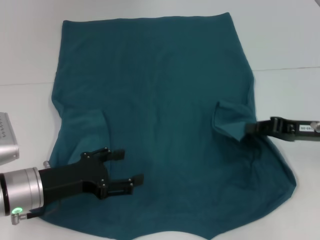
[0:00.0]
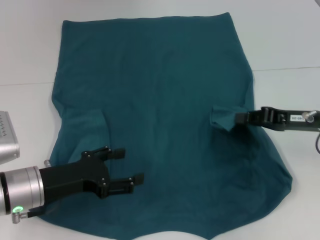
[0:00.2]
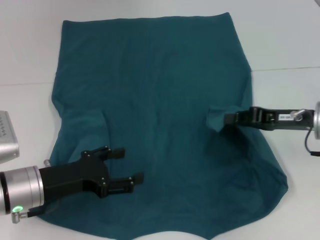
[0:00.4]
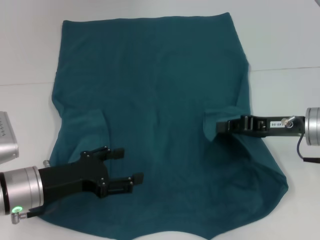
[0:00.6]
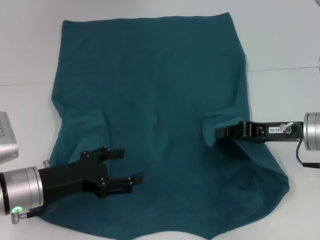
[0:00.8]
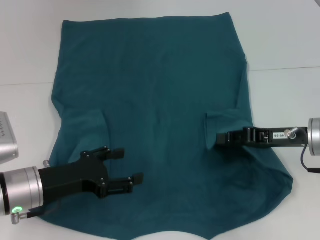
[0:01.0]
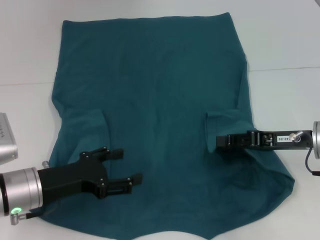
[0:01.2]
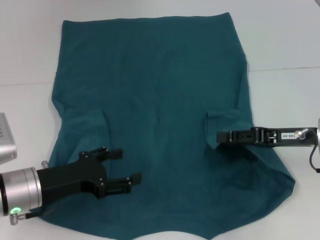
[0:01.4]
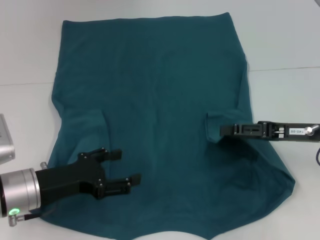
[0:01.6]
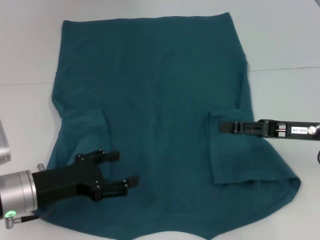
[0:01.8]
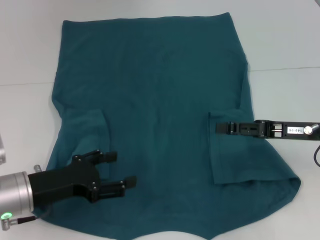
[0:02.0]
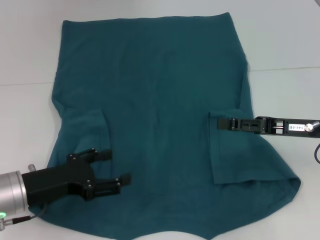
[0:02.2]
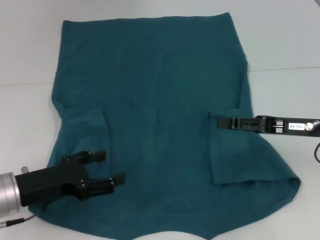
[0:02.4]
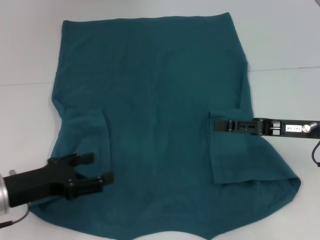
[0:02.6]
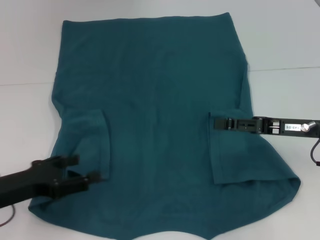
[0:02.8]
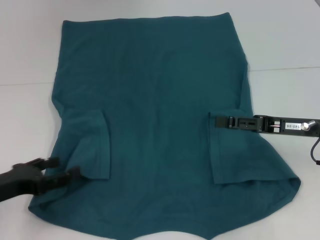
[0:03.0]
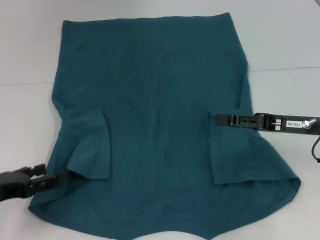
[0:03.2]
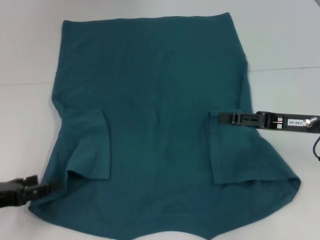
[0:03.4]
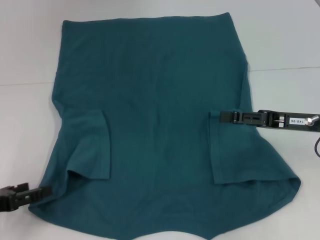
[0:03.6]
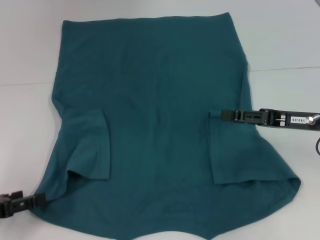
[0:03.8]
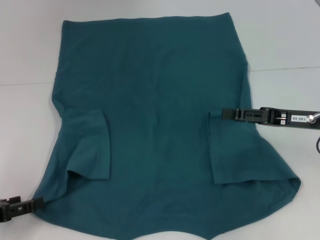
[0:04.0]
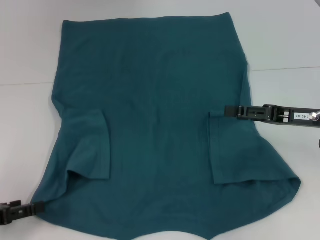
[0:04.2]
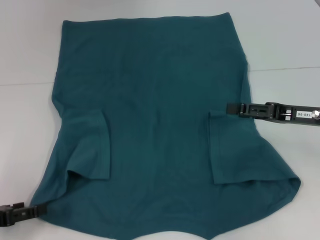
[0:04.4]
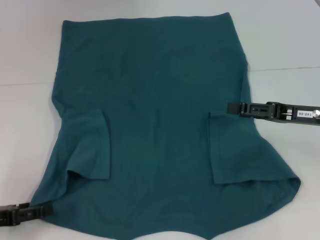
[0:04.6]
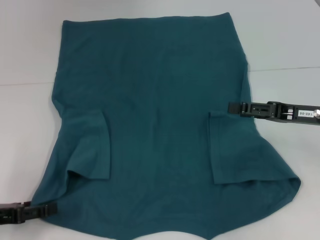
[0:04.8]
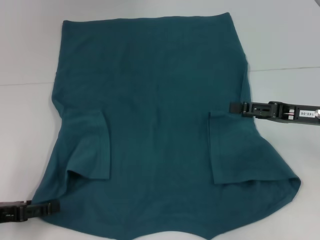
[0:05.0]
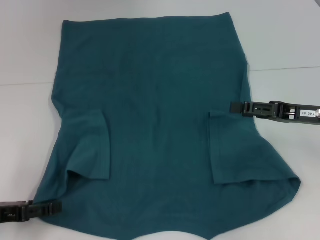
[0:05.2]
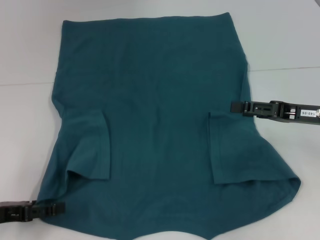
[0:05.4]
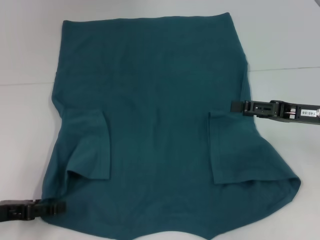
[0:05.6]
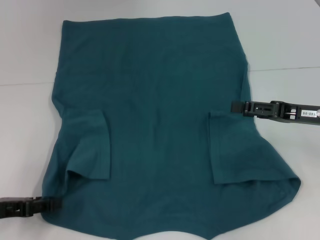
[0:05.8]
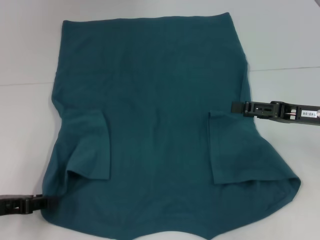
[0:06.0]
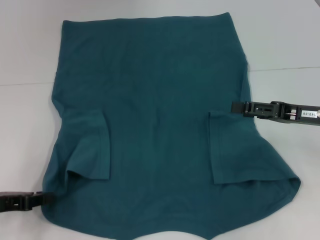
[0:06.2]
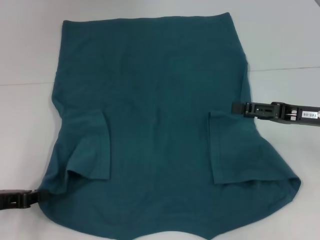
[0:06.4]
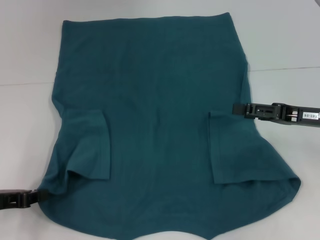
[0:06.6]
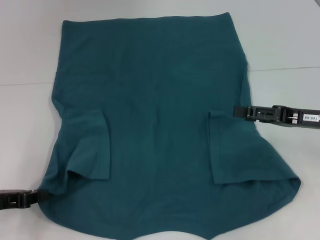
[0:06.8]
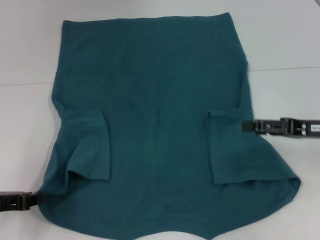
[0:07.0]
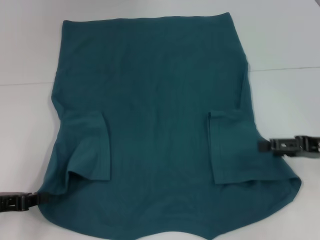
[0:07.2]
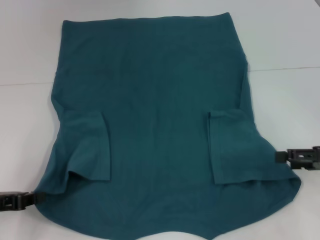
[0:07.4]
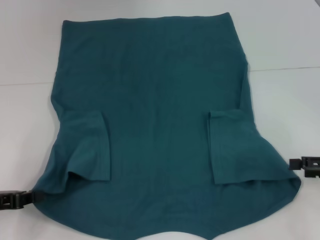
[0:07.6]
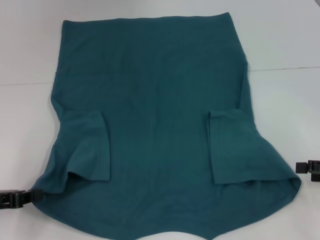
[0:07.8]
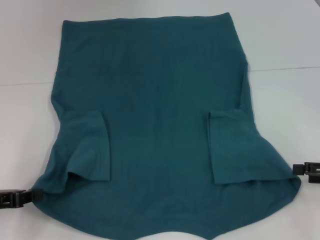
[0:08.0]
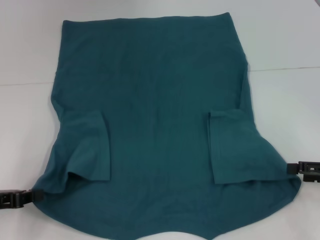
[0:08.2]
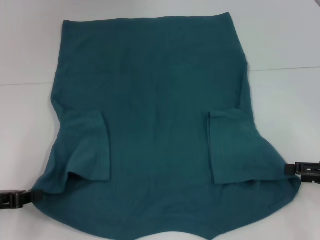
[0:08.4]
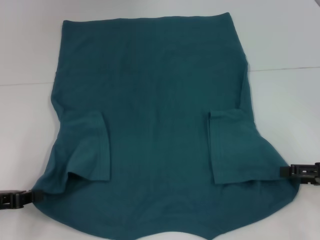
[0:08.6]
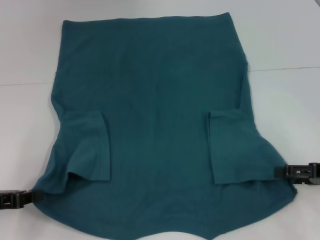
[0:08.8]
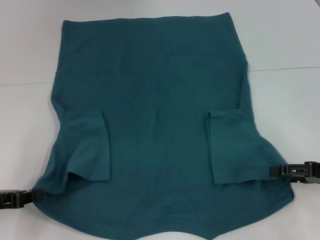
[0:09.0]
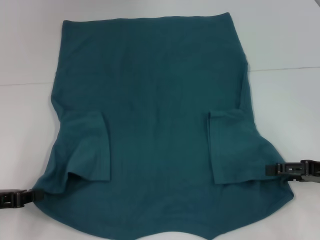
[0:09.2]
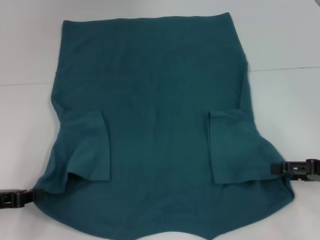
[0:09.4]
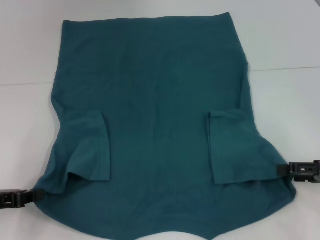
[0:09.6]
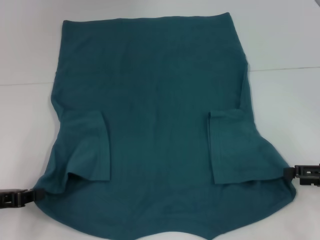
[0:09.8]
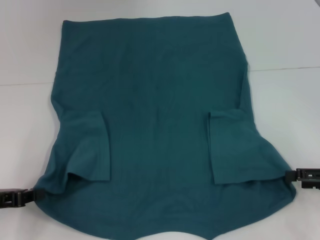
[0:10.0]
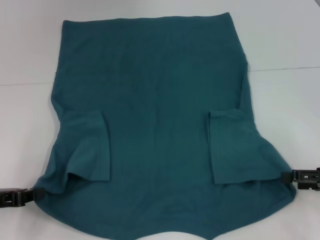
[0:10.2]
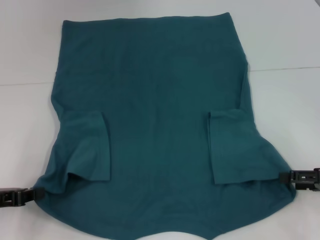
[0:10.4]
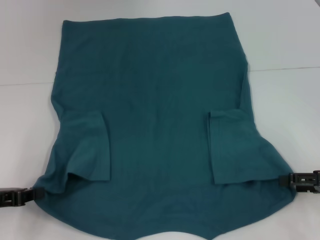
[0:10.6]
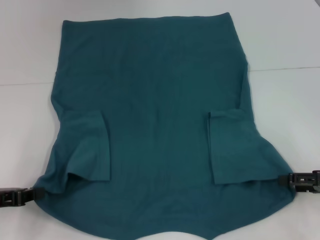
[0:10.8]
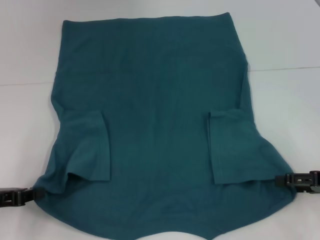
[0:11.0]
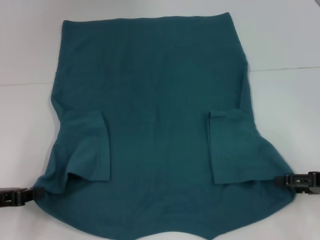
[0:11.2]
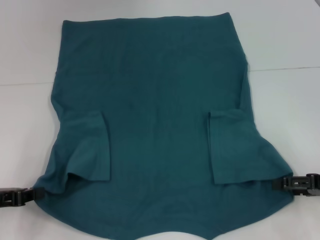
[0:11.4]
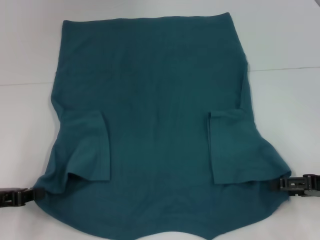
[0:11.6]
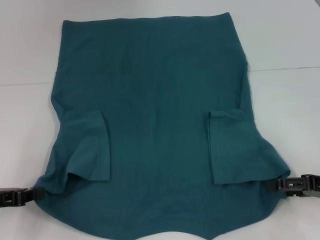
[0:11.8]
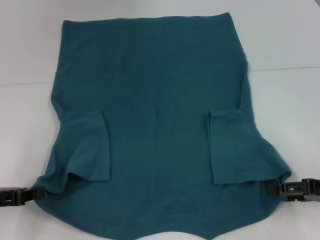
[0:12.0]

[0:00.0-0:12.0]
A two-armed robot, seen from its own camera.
Step, 0:00.0 to 0:02.0: Fold the bottom right sleeve to the right.
Step, 0:02.2 to 0:06.8: Grab the bottom left corner with your left hand.
0:00.0 to 0:01.6: The right gripper opens up.
0:01.6 to 0:03.0: The right gripper opens up; the left gripper shifts some 10 cm to the left.
0:03.0 to 0:04.4: The left gripper shifts by approximately 5 cm.
0:04.4 to 0:06.0: The grippers move only a little.
0:06.0 to 0:07.6: The left gripper closes its fingers; the right gripper moves to the right and backward, roughly 10 cm.
0:07.6 to 0:12.0: The grippers make only small movements.

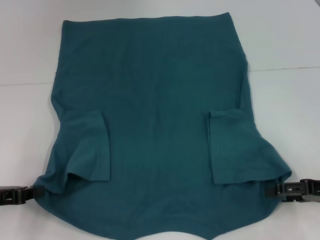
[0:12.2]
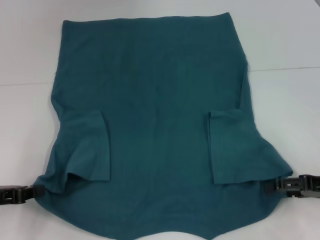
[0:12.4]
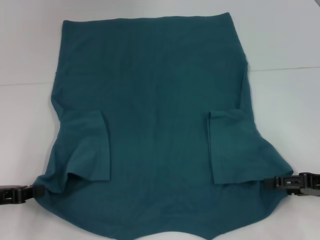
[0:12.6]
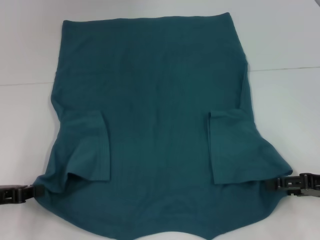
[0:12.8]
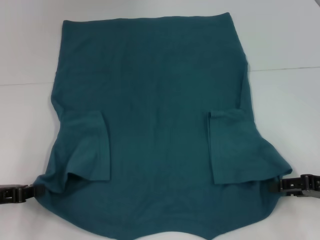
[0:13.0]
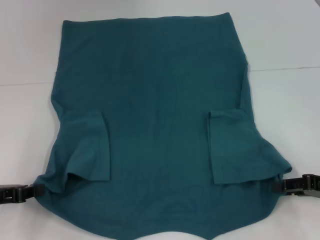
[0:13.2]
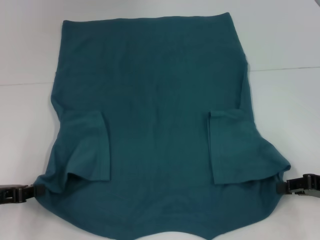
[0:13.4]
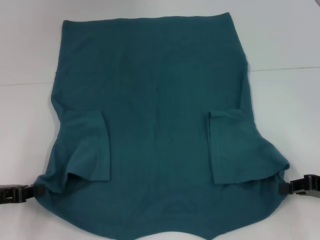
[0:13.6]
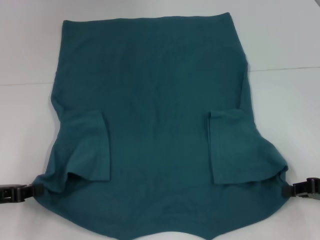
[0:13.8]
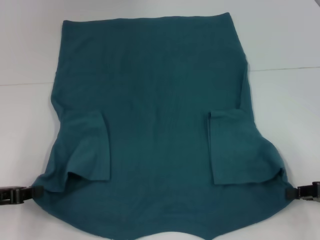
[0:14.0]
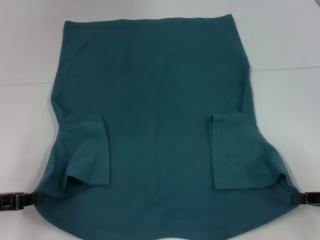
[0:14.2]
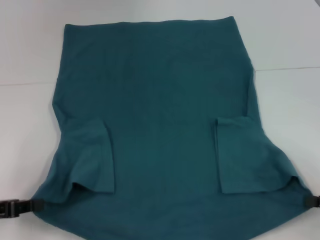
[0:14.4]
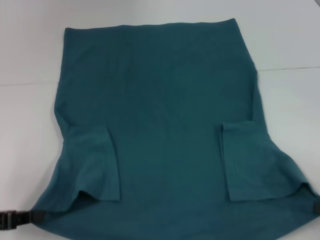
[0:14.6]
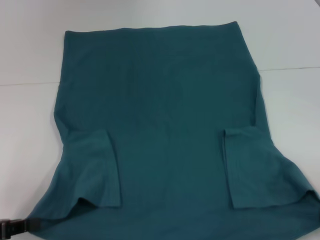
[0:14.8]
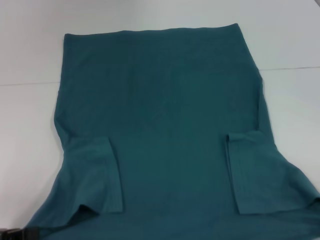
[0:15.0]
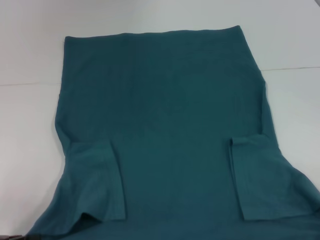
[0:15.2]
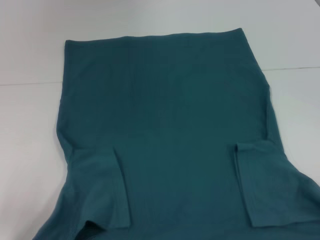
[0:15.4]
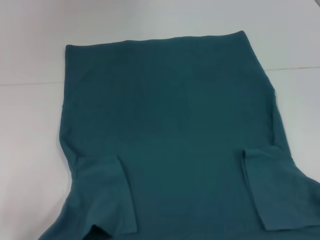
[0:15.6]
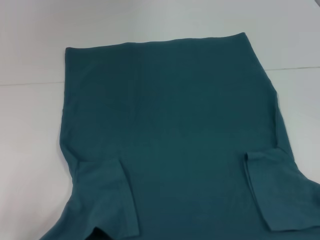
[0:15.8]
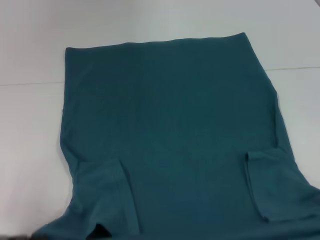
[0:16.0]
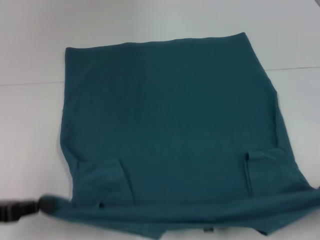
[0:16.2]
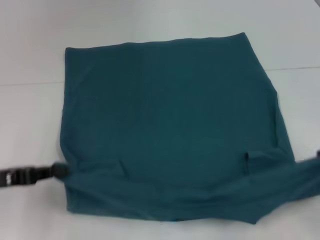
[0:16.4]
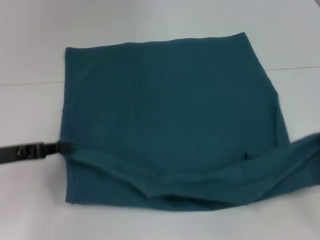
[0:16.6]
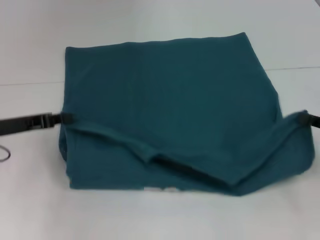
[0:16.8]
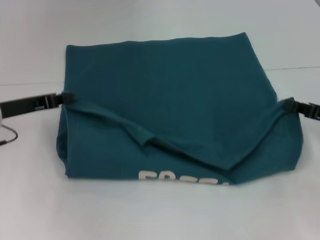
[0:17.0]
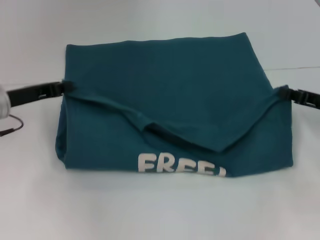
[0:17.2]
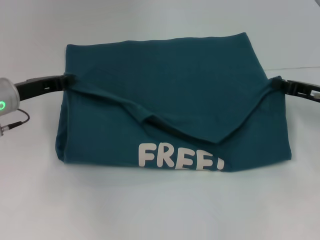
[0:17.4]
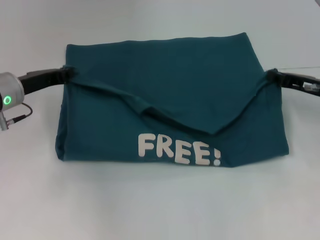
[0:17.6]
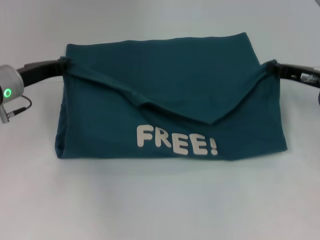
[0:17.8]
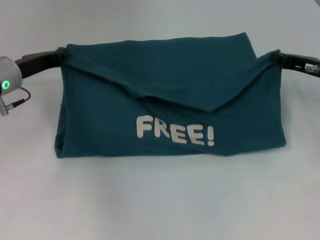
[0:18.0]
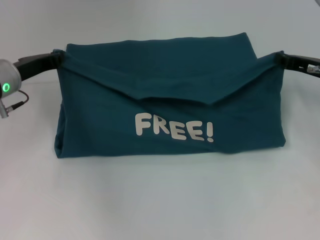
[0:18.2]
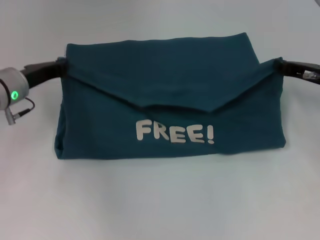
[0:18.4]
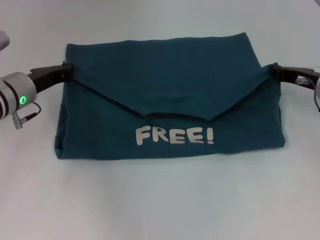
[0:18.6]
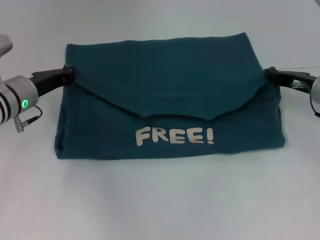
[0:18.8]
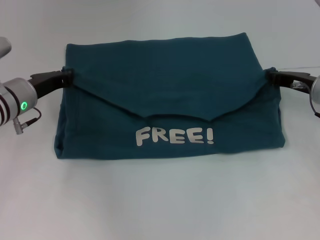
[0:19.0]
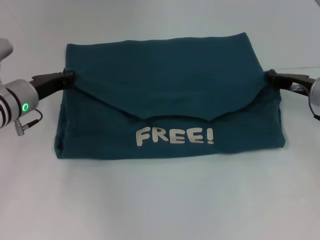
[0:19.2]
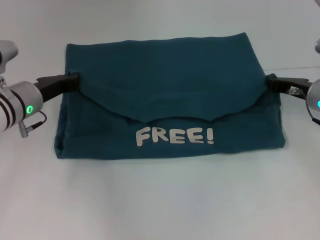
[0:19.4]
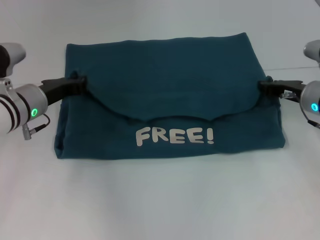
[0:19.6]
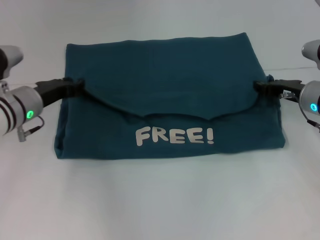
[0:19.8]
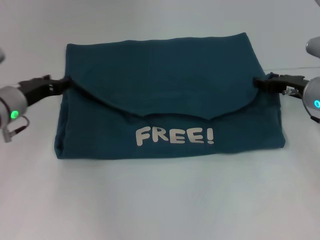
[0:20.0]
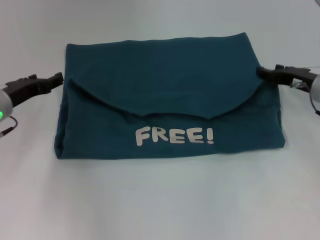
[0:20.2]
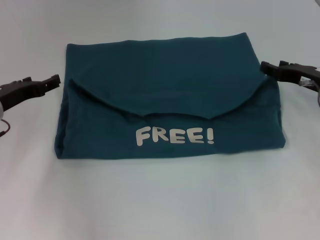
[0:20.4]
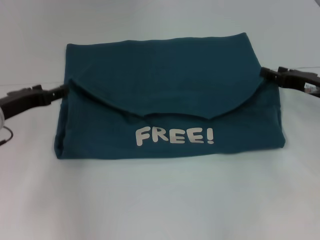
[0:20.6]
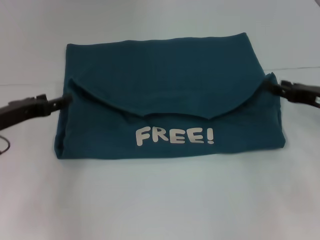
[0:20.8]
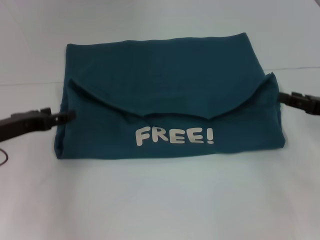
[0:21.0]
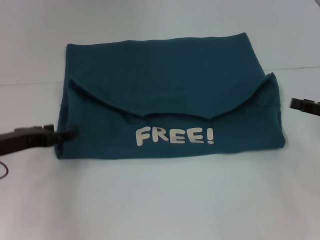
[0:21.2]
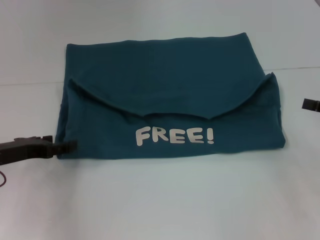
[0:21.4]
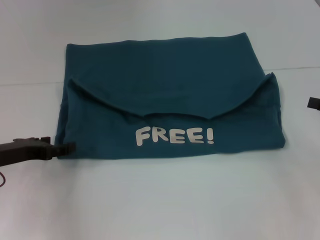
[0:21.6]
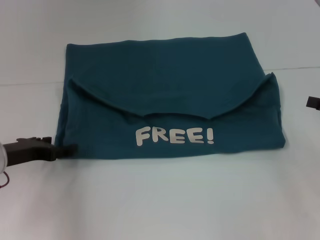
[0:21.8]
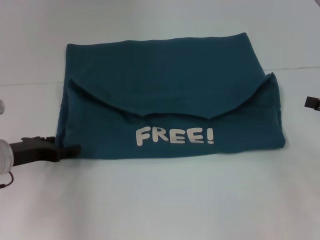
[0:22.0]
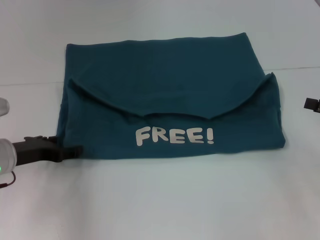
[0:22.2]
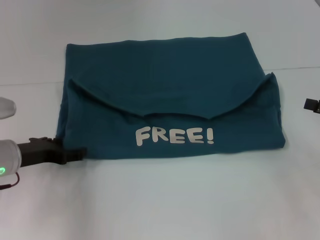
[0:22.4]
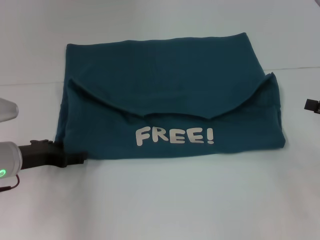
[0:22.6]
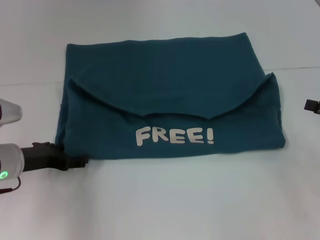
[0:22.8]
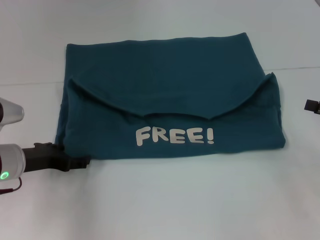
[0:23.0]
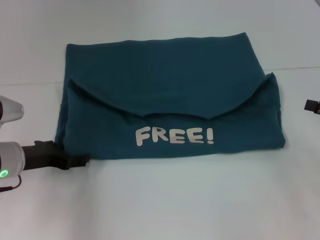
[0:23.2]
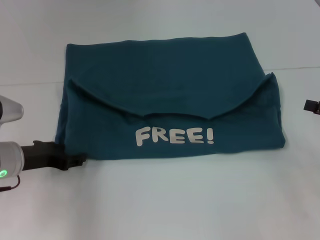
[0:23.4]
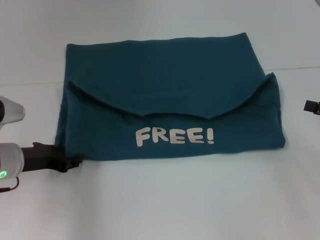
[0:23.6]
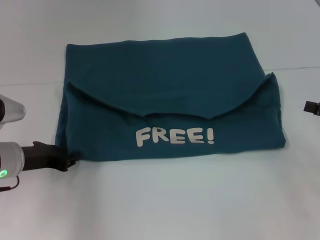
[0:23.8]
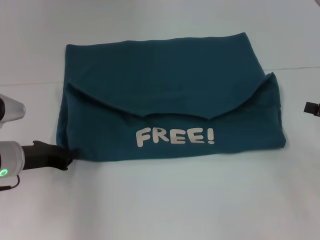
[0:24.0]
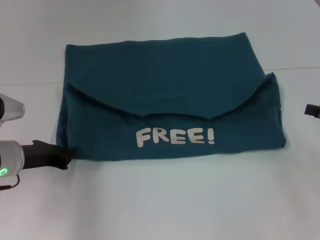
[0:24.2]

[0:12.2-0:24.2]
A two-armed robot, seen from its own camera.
Step, 0:13.8 to 0:20.0: Fold the clothes to the left.
Step, 0:13.8 to 0:20.0: Fold the clothes to the right.
0:12.2 to 0:13.8: The right gripper closes up.
0:13.8 to 0:15.2: The right gripper heads backward and to the right, covering about 15 cm. Meanwhile the left gripper shifts some 5 cm backward.
0:15.2 to 0:16.6: Both grippers move forward, approximately 10 cm.
0:16.6 to 0:18.2: The left gripper goes some 15 cm forward and to the right; the right gripper goes roughly 20 cm forward and to the left.
0:18.2 to 0:19.8: The right gripper ends up roughly 5 cm from where it was.
0:19.8 to 0:21.2: The left gripper shifts about 10 cm backward and to the left, and opens up. Meanwhile the right gripper is displaced backward and to the right by some 15 cm, and opens up.
0:21.2 to 0:22.6: The grippers move only a little.
0:22.6 to 0:24.2: The left gripper closes.
